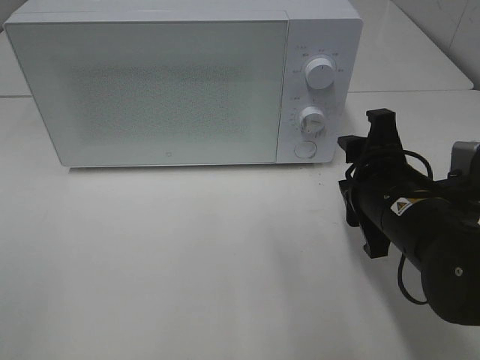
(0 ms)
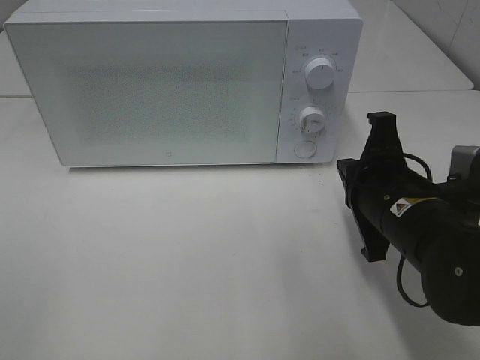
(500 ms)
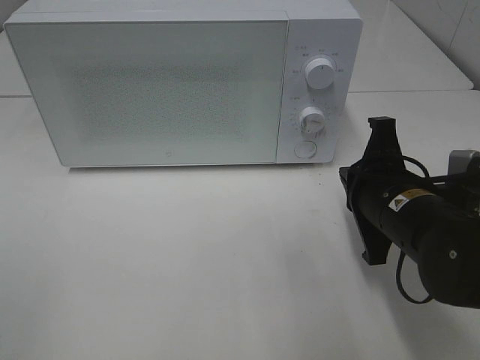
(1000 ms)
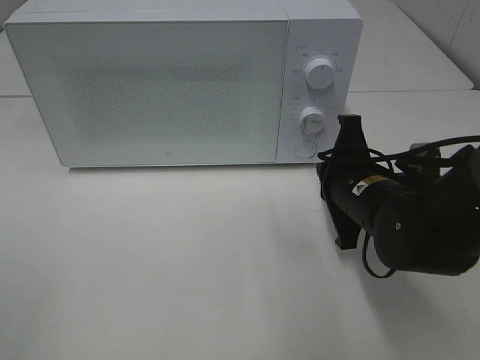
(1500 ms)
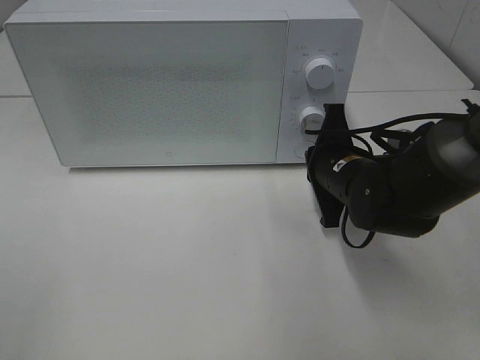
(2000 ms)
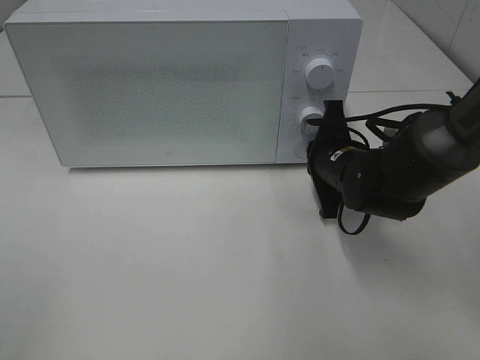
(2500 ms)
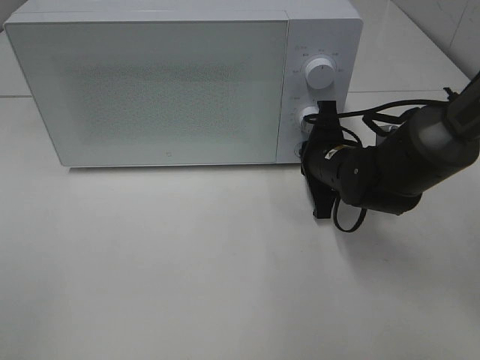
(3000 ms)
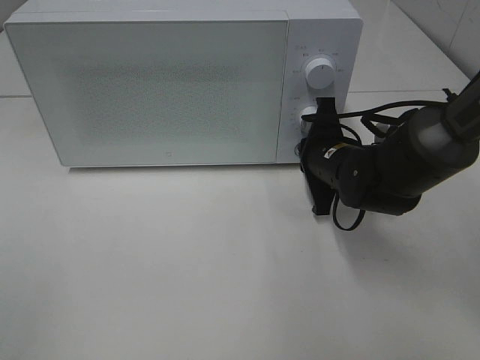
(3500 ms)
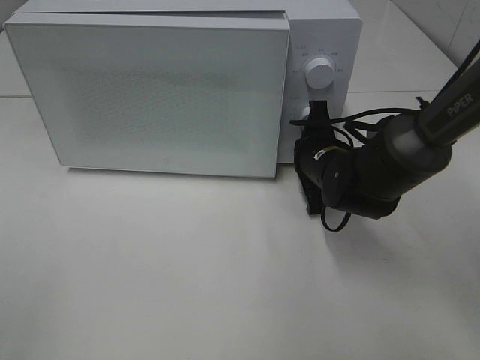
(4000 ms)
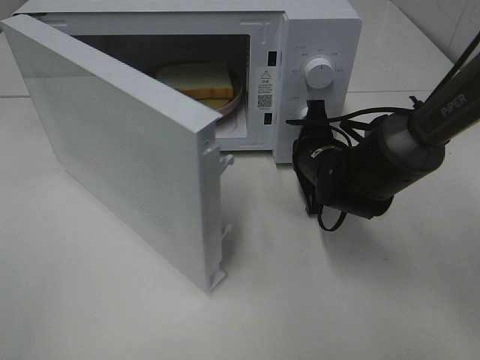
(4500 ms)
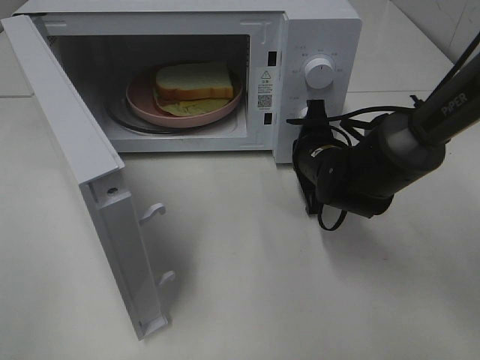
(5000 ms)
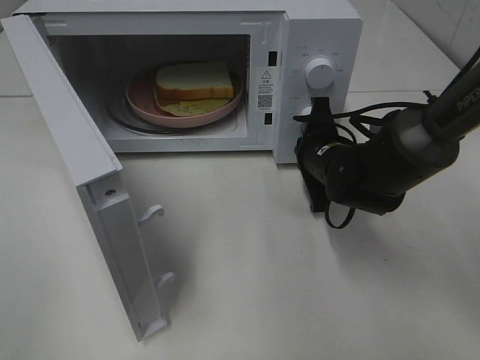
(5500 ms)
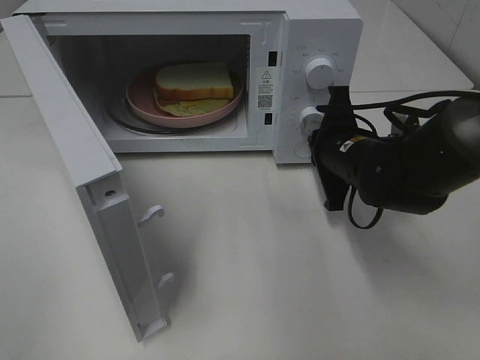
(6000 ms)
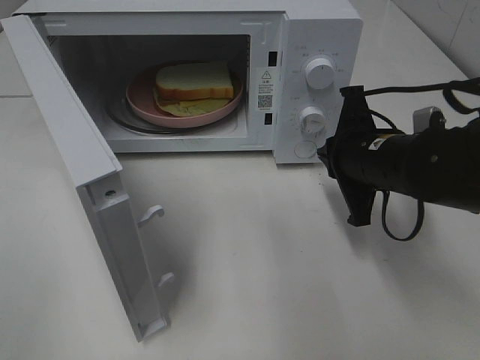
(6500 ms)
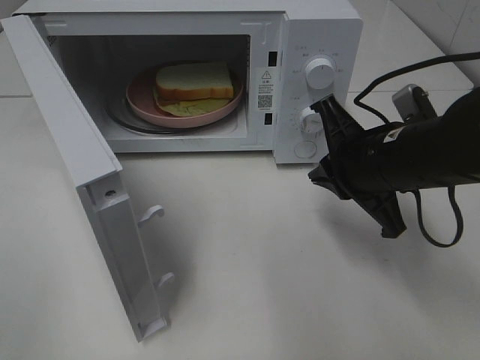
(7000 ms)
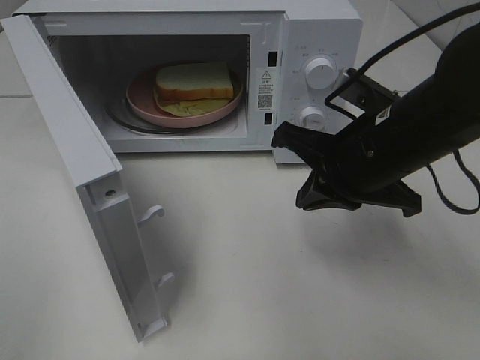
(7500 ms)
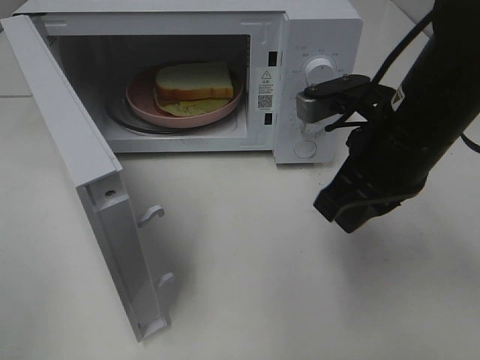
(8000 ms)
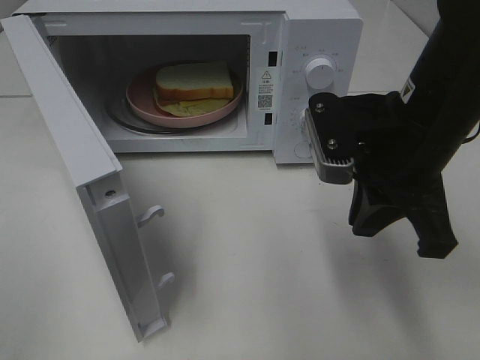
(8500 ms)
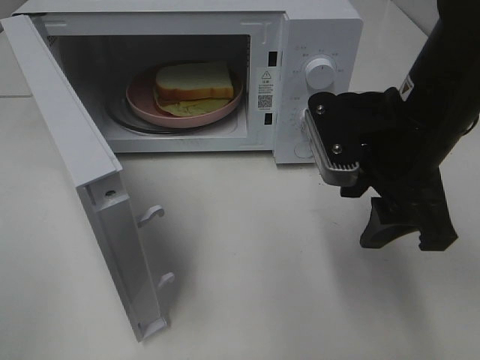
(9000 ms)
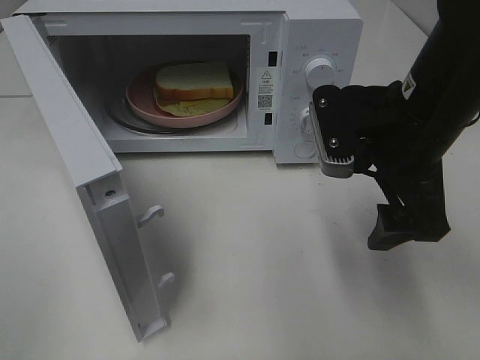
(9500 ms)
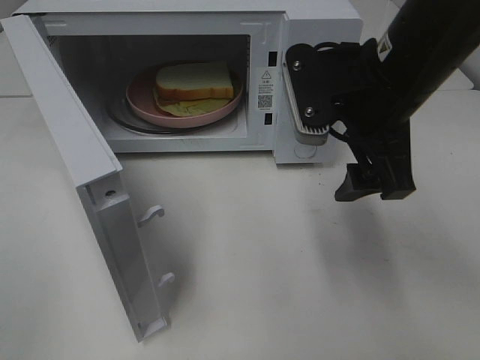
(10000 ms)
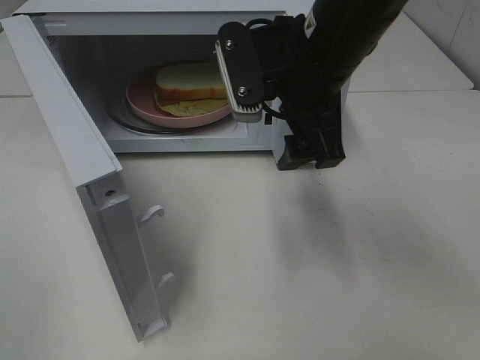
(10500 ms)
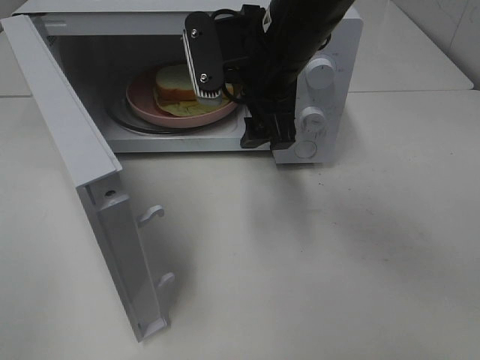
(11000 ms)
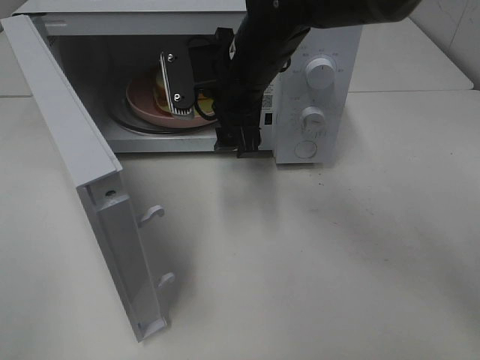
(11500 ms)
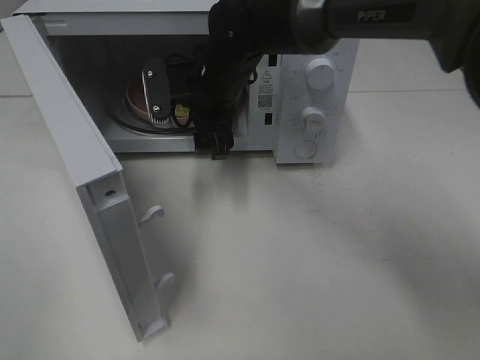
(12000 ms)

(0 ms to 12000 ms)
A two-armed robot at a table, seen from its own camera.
Task of the whole recording: Heat Sandwich.
Step, 0 ms - 6500 ms: Right hand: press the switch.
0 ms - 2000 ms: The right gripper is displaced forward by some 10 cm, and closes.
2000 ms - 4000 ms: The grippers make only small movements.
6000 ms - 8000 ms: The right gripper moves upward and backward, about 15 cm.
8000 ms - 10000 ms: The right gripper opens.
10000 ms - 12000 ms: The right gripper goes approximately 20 cm forward, to the left and downward.

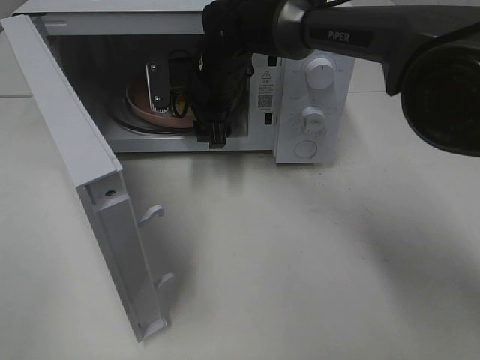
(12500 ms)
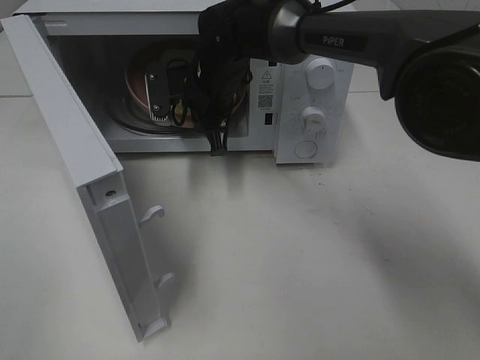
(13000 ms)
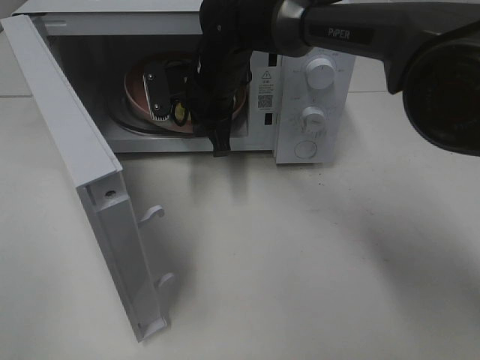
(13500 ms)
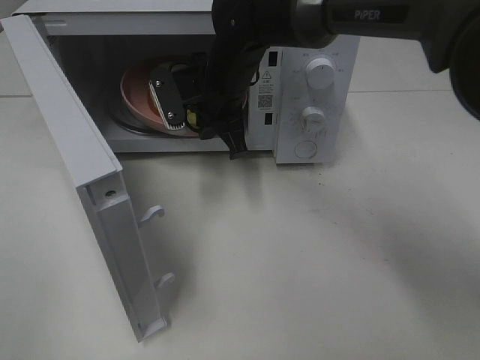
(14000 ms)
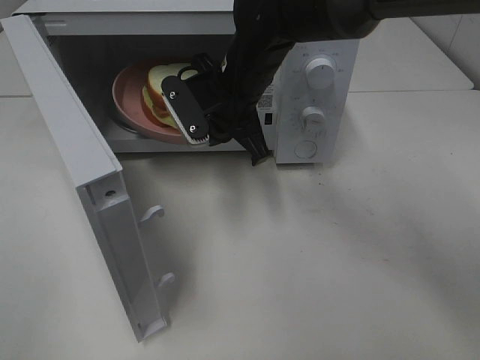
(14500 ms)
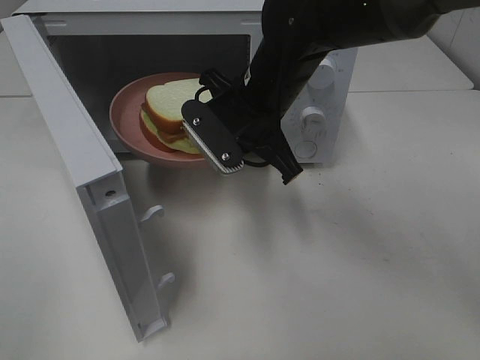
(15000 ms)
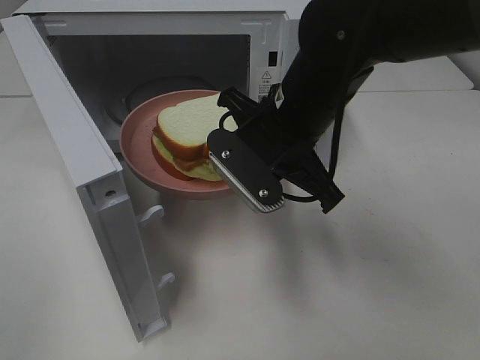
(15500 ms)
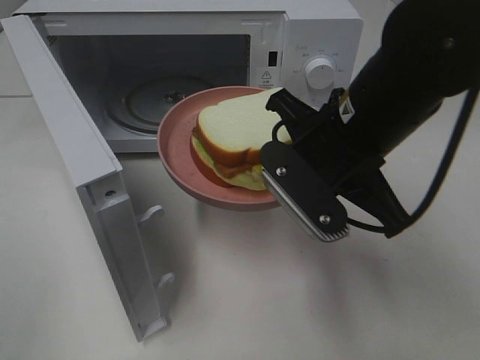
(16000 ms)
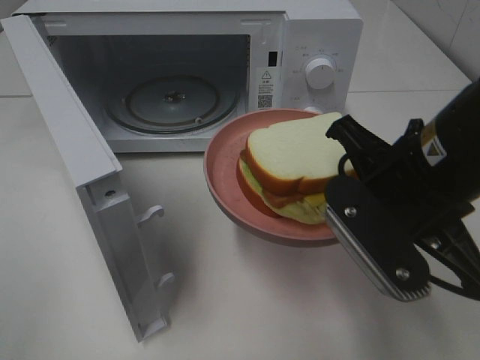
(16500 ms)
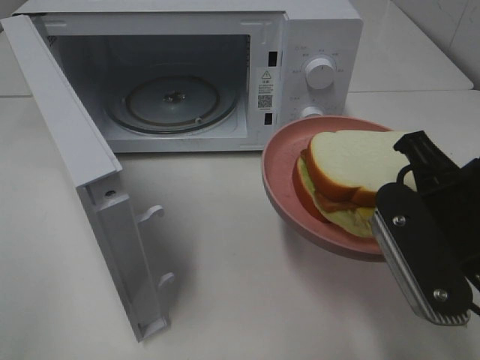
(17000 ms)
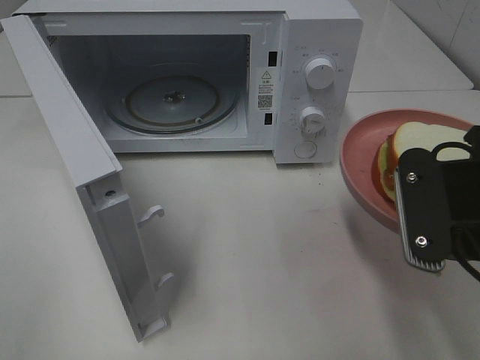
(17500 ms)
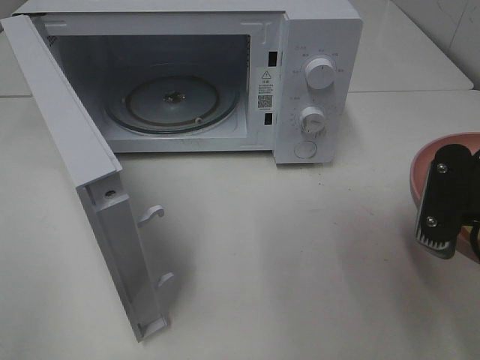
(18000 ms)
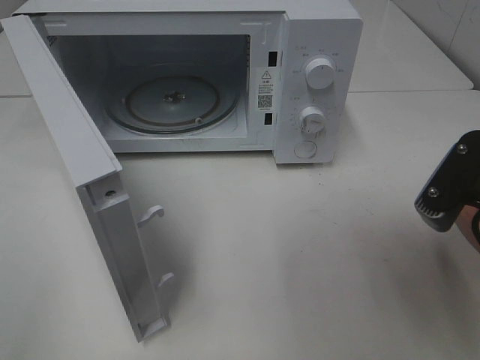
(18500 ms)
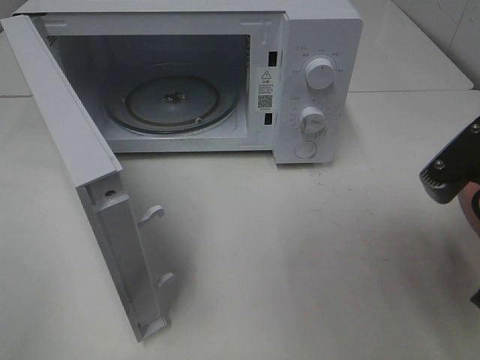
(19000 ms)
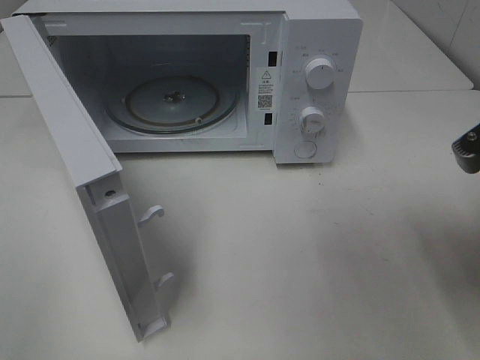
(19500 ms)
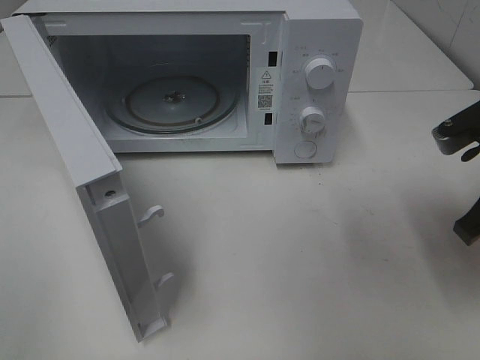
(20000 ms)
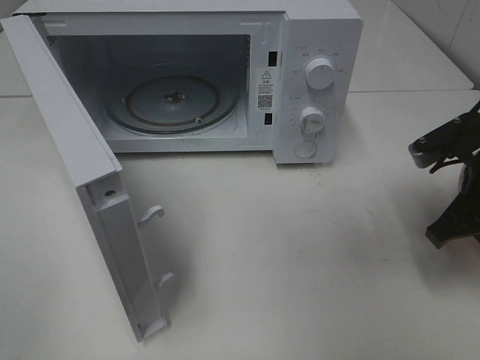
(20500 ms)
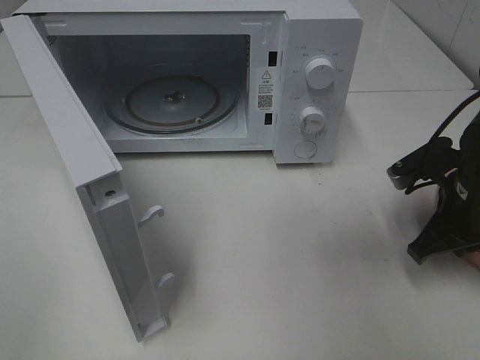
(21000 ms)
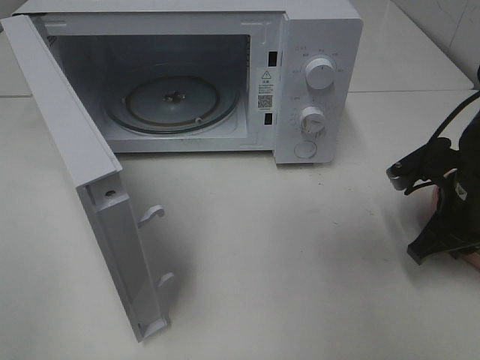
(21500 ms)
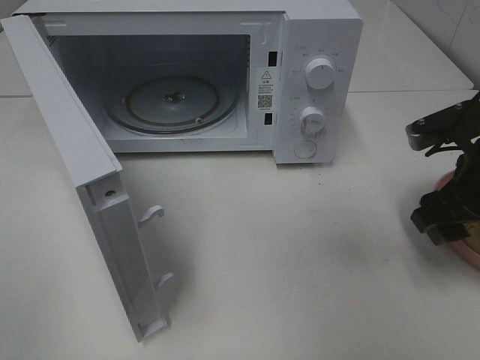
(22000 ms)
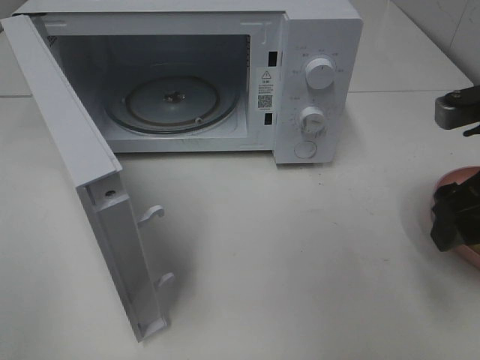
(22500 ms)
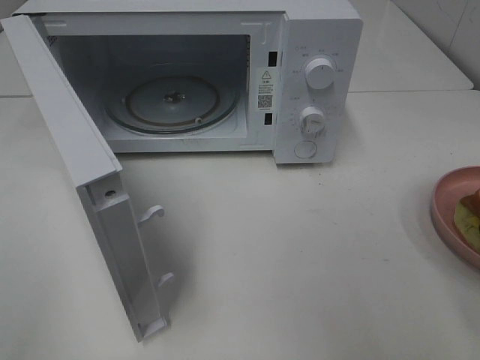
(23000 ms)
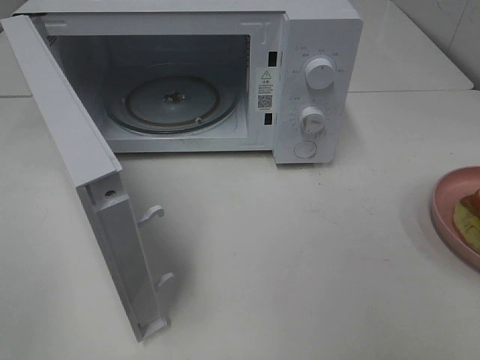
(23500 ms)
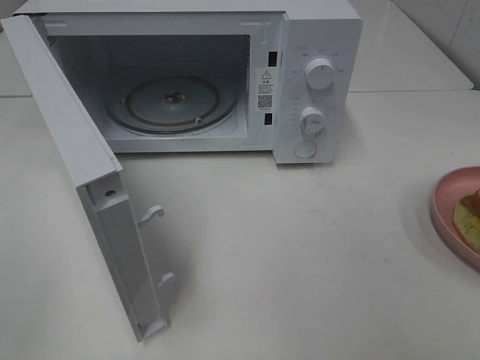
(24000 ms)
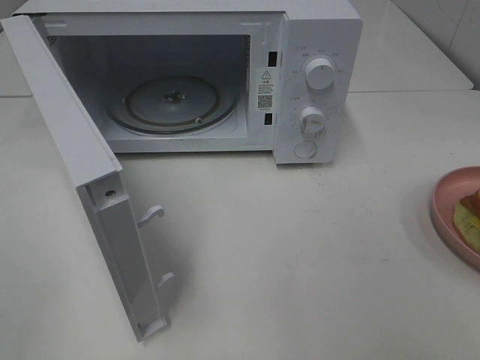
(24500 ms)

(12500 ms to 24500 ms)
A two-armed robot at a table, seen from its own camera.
Task of the whole recording: Heat Sandwich.
Step, 14000 ms - 22000 ms: Right hand: place the plate on the table.
12500 ms - 14500 ms: The right gripper shifts roughly 5 cm backward, and closes its fingers.
14500 ms - 16500 ms: The right gripper travels backward and to the right by roughly 25 cm.
16500 ms - 18500 ms: The right gripper moves to the right, approximately 5 cm.
18500 ms - 20500 ms: The right gripper goes roughly 15 cm forward and downward.
20500 ms - 22500 ms: The right gripper moves upward, approximately 5 cm, and opens its fingers.
22500 ms - 24500 ms: The right gripper is displaced backward by roughly 20 cm.

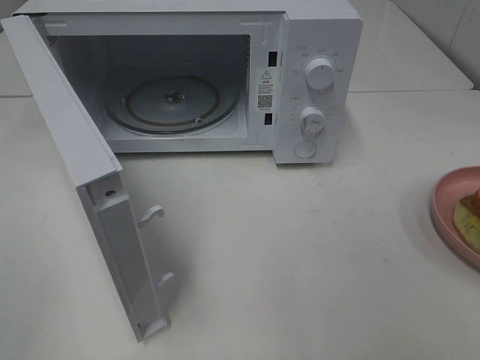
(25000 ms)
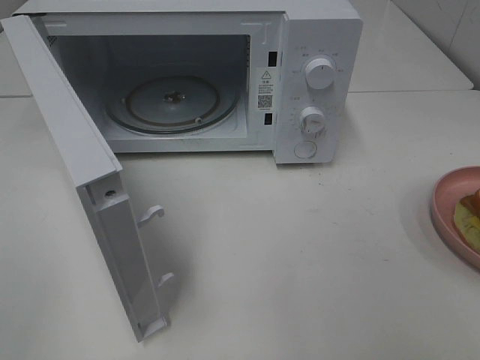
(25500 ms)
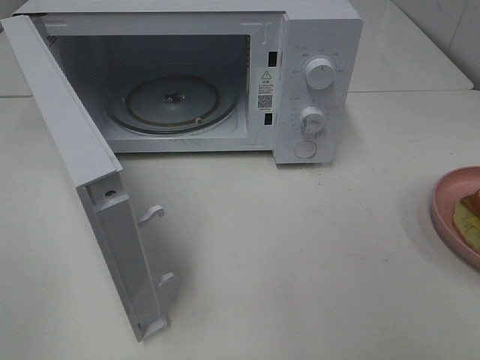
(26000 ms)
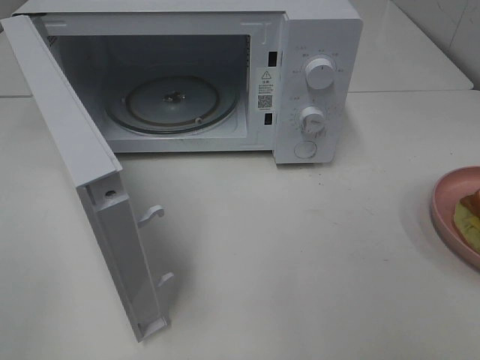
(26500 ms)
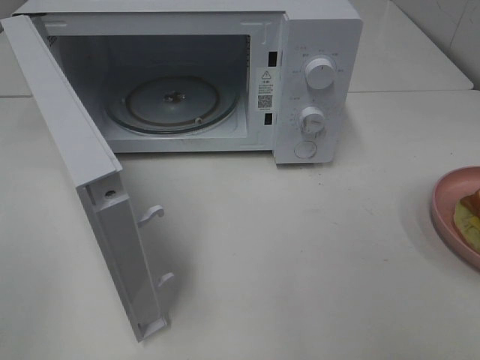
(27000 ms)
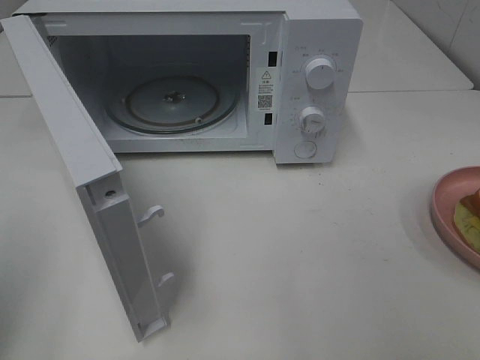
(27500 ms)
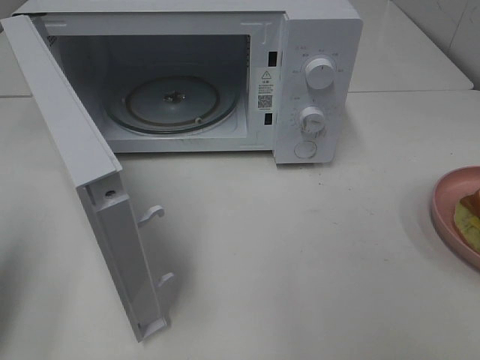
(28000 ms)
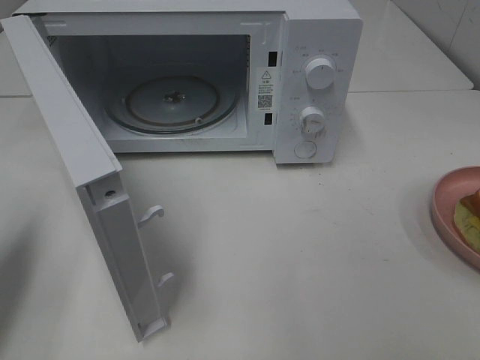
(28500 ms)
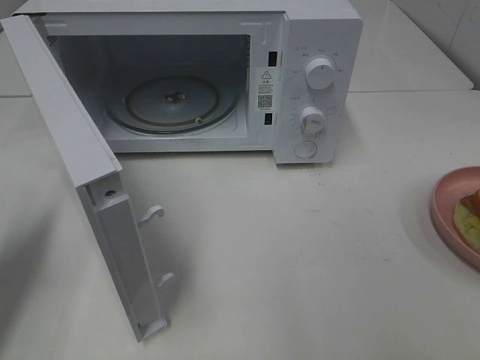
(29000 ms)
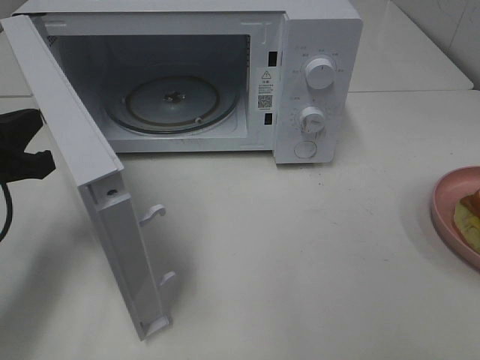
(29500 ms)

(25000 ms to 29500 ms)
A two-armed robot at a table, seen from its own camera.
Task of the whole recording: Heat Sandwich.
27000 ms - 29500 ms: The left gripper shifts roughly 25 cm forward and downward, and closes.
